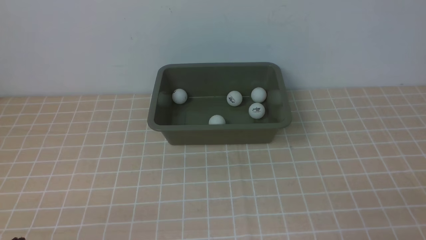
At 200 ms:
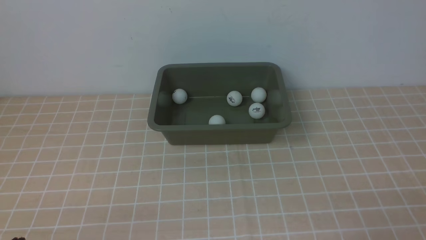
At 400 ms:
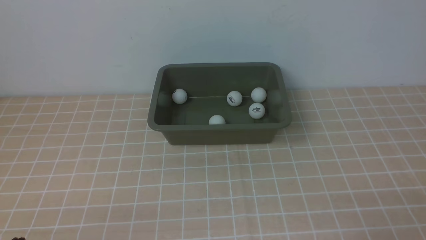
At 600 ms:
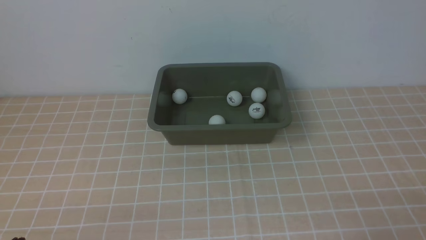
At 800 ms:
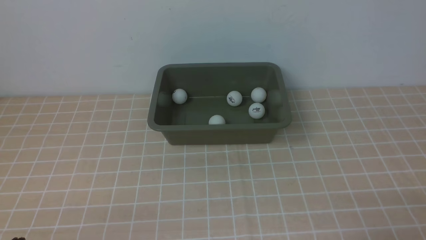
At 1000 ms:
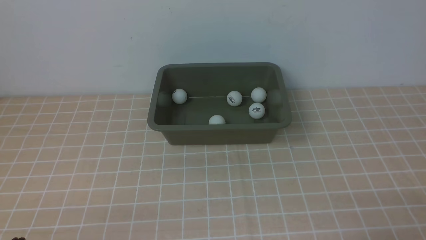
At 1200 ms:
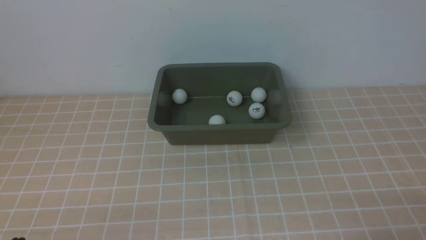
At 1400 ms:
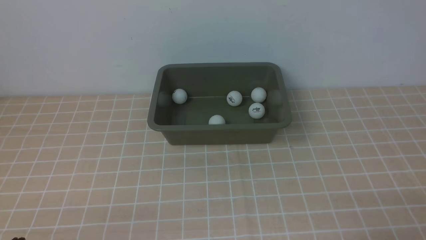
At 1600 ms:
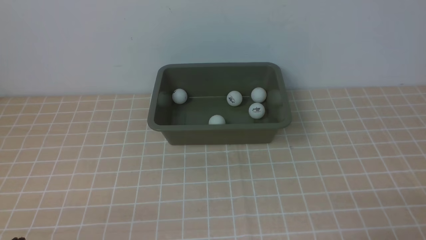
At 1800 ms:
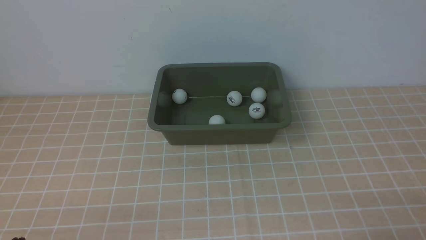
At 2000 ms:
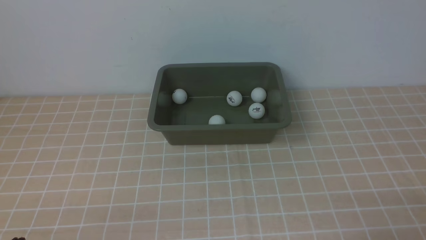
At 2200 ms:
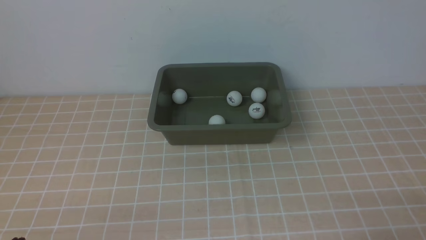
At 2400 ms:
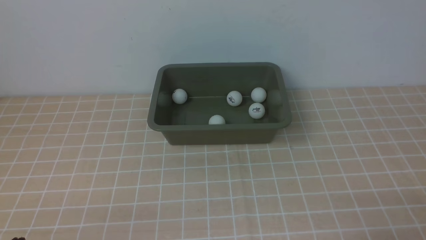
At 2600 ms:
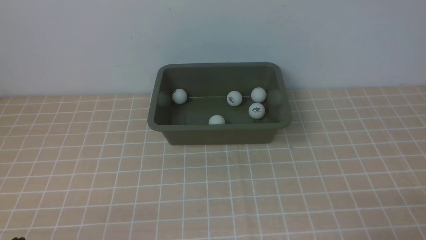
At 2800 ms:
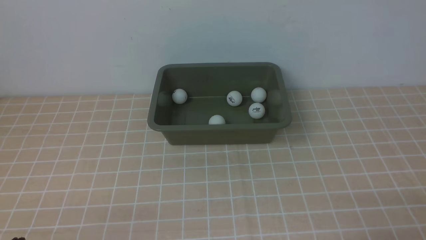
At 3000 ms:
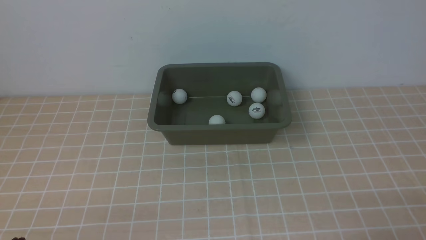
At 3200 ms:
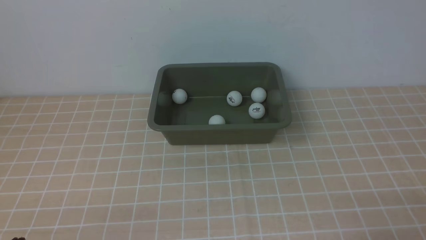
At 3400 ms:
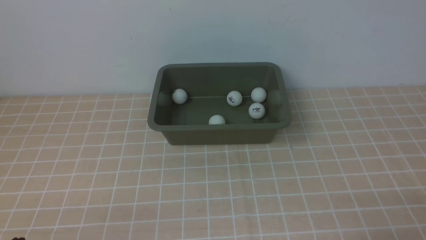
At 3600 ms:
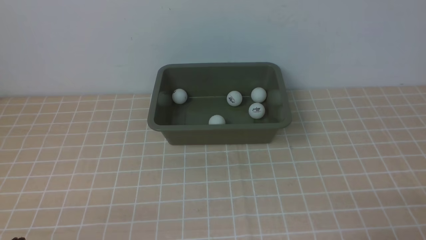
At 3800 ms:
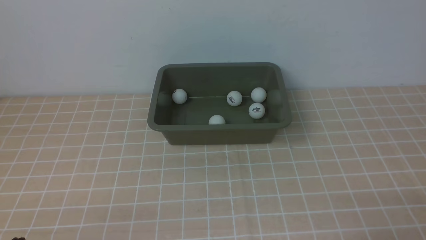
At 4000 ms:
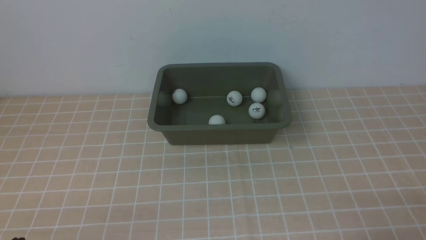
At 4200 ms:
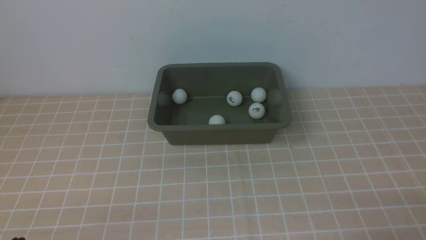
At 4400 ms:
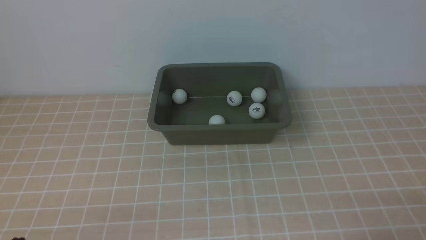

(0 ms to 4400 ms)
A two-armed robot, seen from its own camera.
1400 ms - 4400 ms: Neither gripper changes place.
